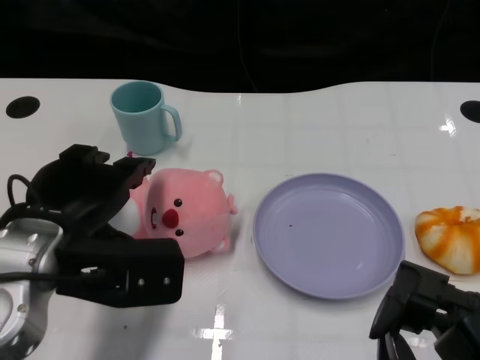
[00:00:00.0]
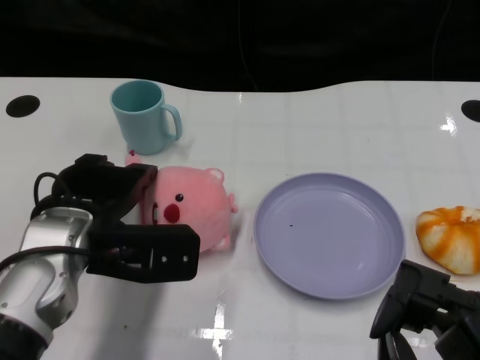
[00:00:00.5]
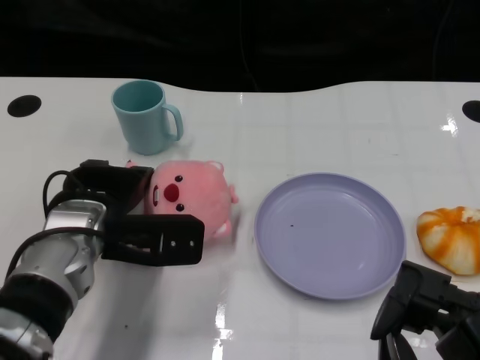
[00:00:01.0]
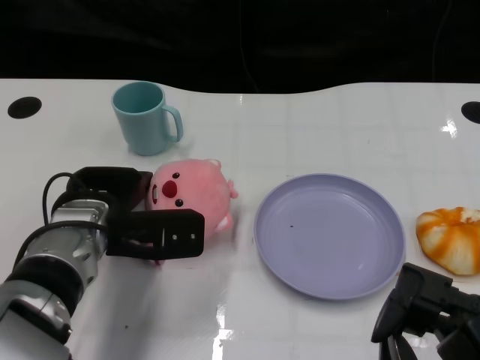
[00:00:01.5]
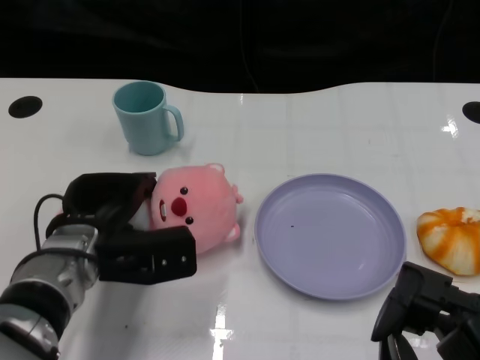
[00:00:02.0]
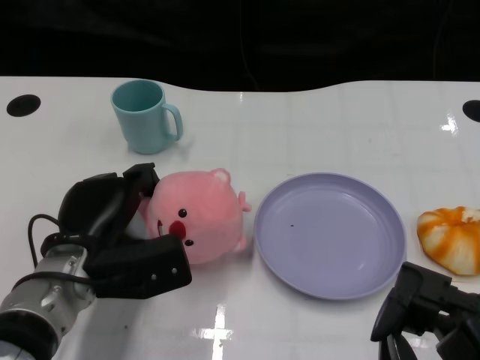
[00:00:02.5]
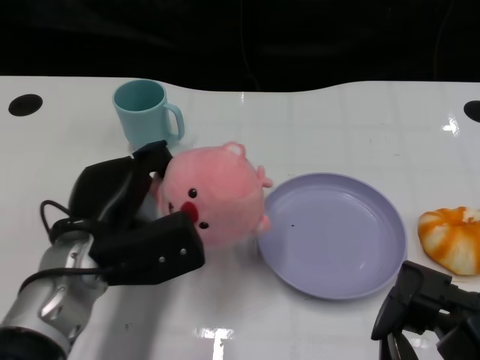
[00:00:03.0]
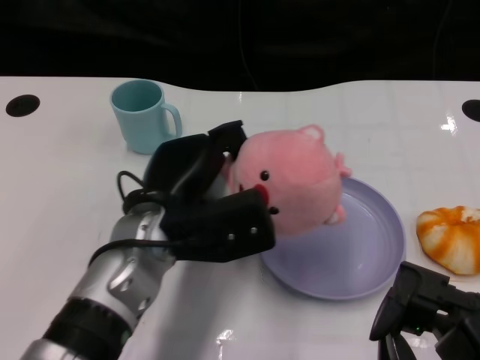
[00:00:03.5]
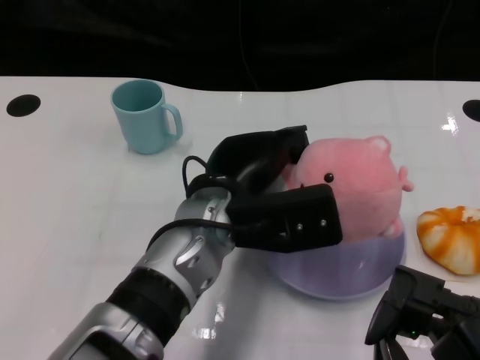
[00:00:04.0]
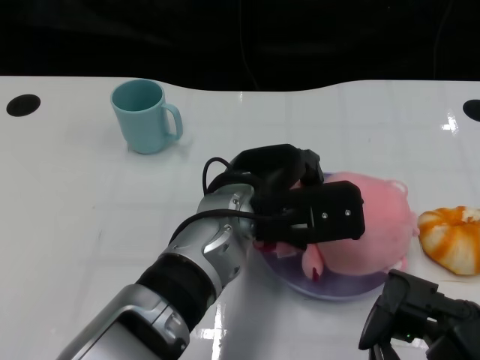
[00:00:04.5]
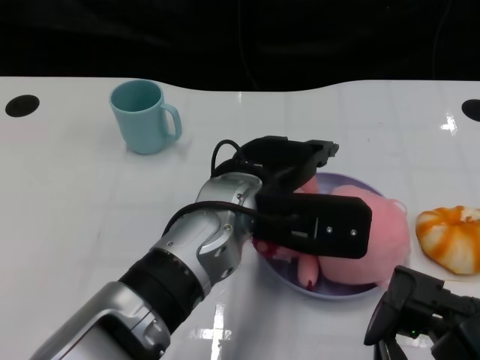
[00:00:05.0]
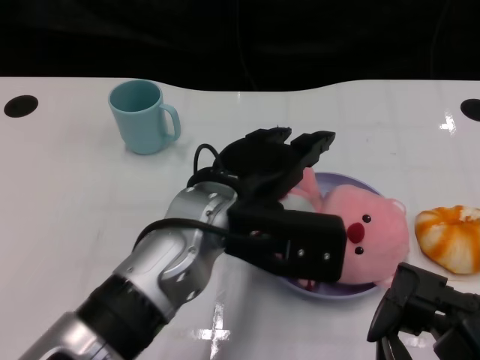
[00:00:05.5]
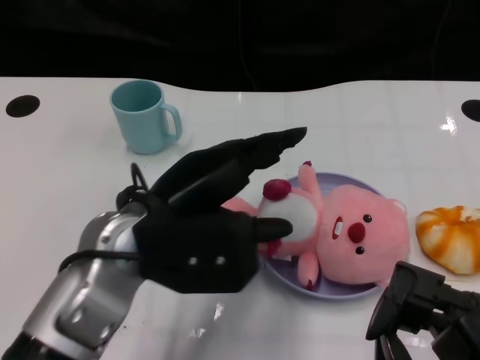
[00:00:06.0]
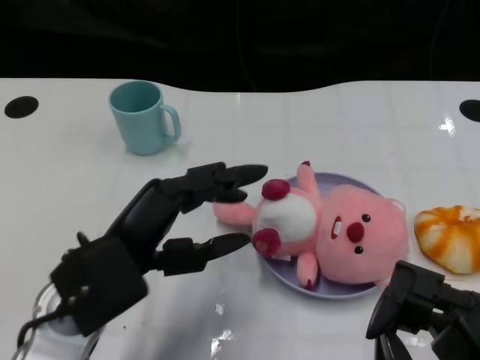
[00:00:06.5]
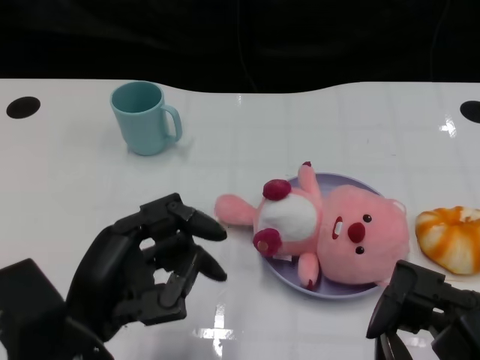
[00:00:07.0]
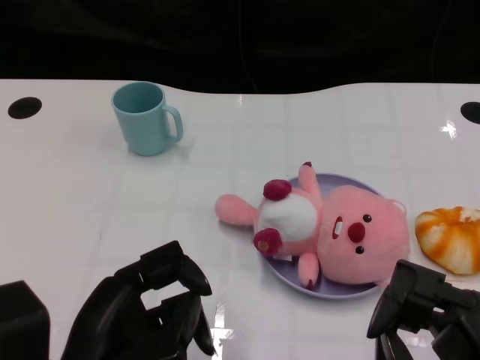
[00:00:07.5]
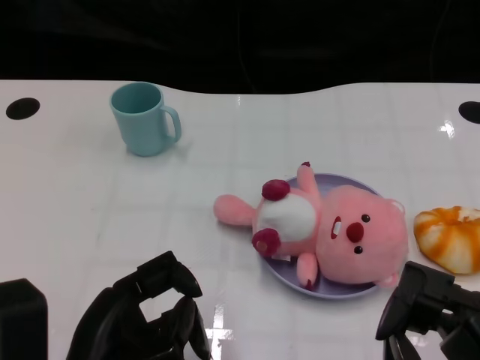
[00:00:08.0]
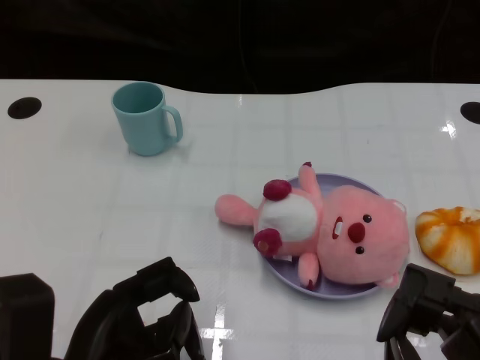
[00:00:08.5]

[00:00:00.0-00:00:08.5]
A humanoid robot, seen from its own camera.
Task of the whole recording: Pick up the doll on one side of the plate and place it into the plate.
Step, 00:00:00.0 to 00:00:02.5: Grasp the pink doll with the left gripper.
Step, 00:00:03.0 to 00:00:05.0: Place the pink doll into the plate with the left gripper.
00:00:00.0 to 00:00:02.0: The left hand travels downward and forward by approximately 10 cm.
00:00:02.0 to 00:00:04.0: The left hand is displaced to the right and upward by about 15 cm.
00:00:04.0 to 00:00:06.5: The left hand shifts roughly 15 cm to the left and backward.
00:00:06.5 to 00:00:08.5: The left hand goes about 10 cm backward.

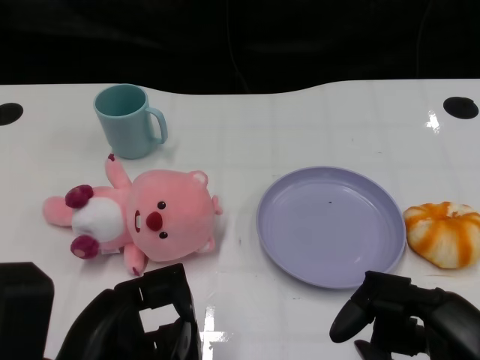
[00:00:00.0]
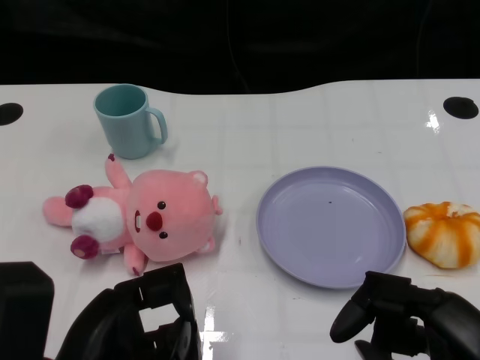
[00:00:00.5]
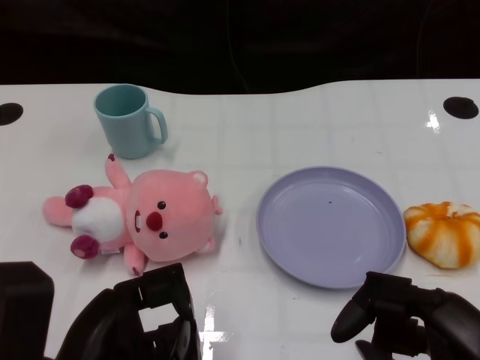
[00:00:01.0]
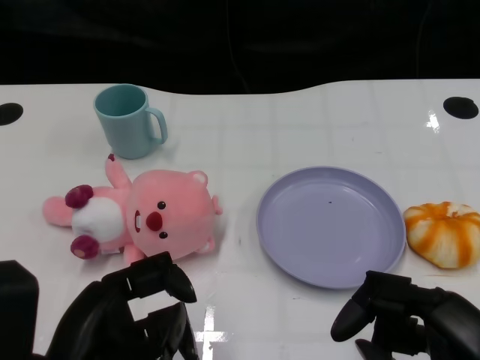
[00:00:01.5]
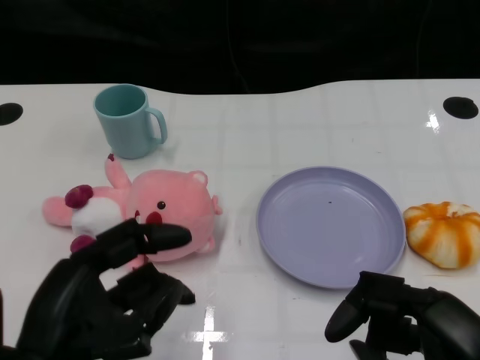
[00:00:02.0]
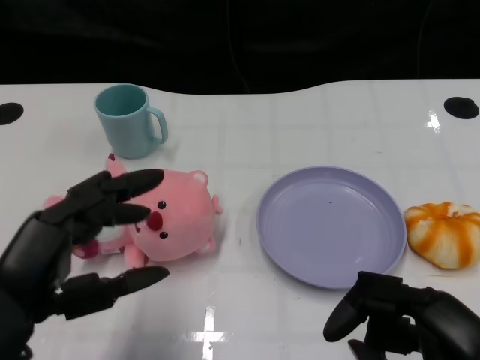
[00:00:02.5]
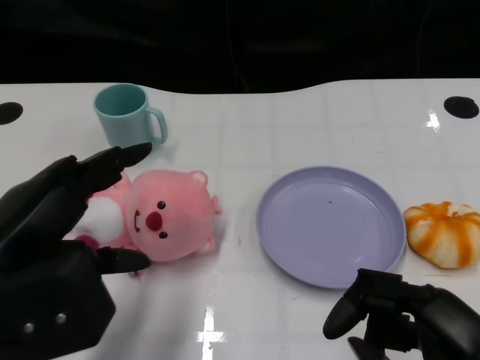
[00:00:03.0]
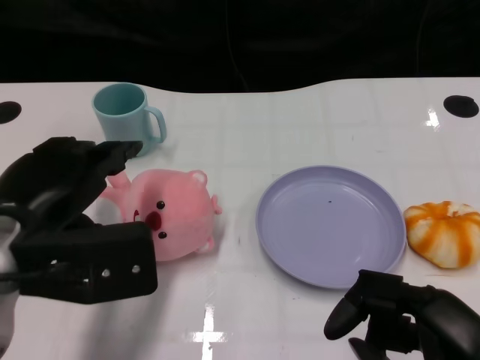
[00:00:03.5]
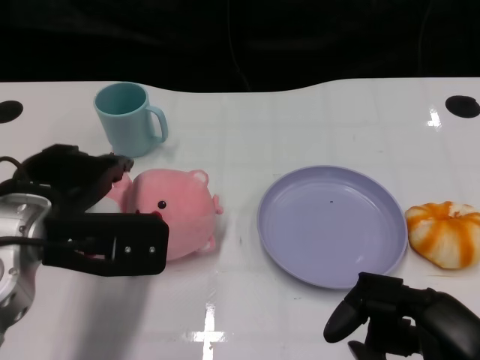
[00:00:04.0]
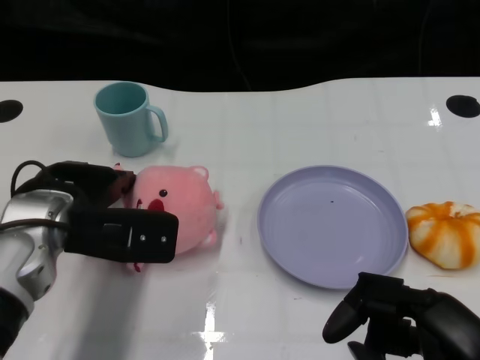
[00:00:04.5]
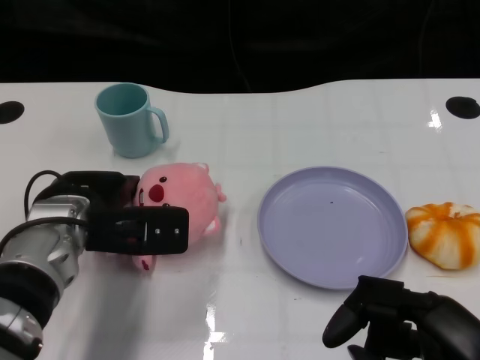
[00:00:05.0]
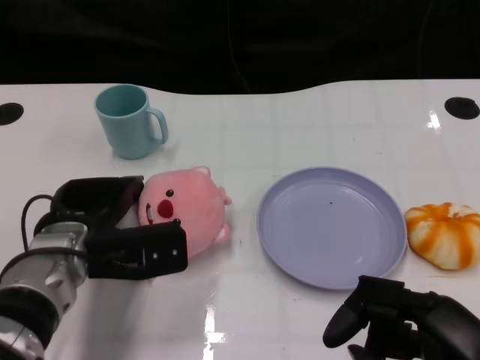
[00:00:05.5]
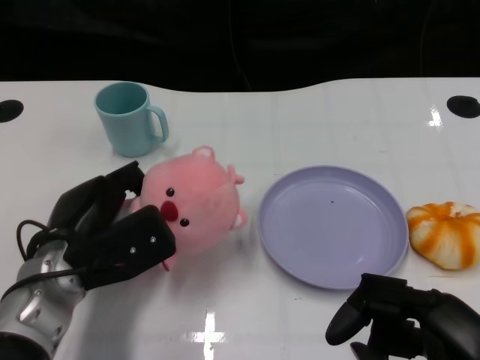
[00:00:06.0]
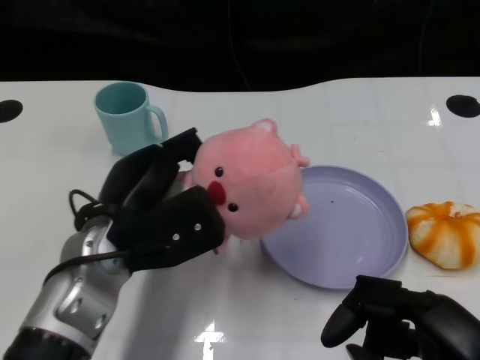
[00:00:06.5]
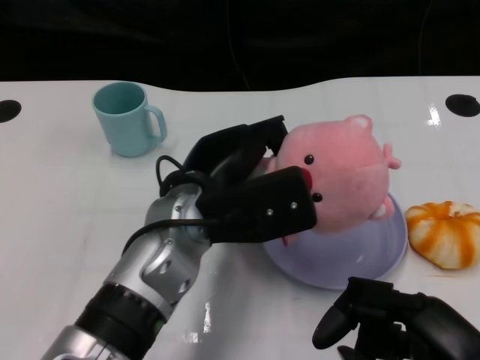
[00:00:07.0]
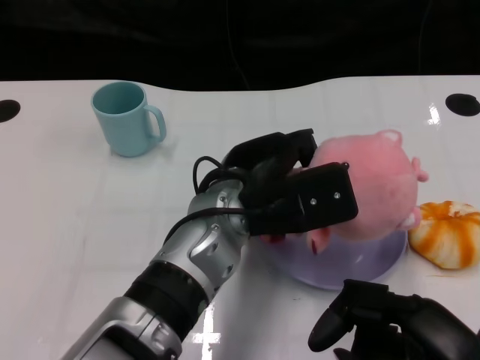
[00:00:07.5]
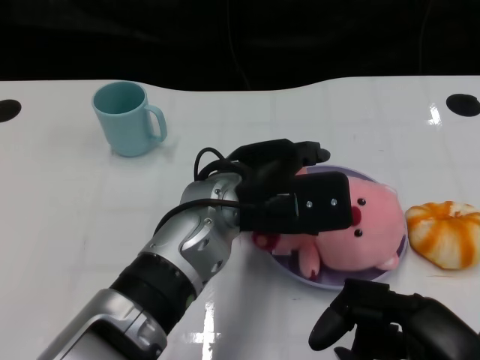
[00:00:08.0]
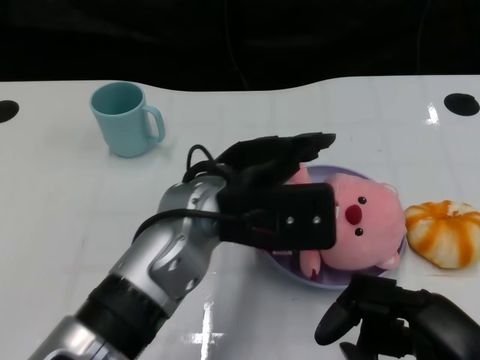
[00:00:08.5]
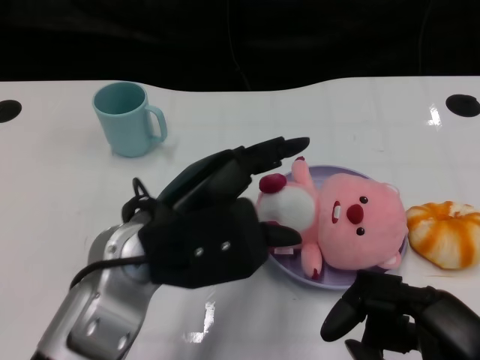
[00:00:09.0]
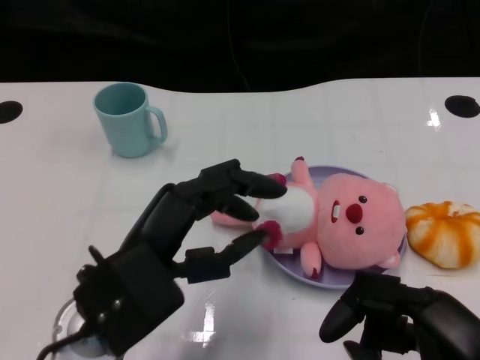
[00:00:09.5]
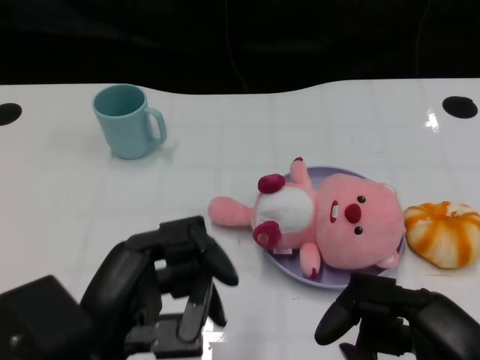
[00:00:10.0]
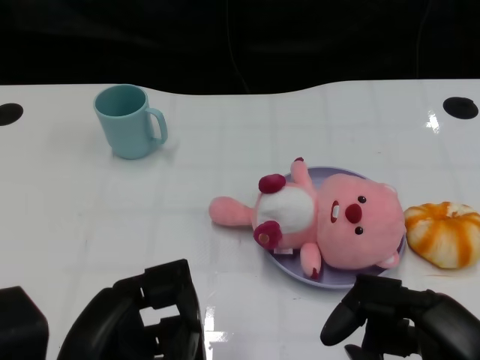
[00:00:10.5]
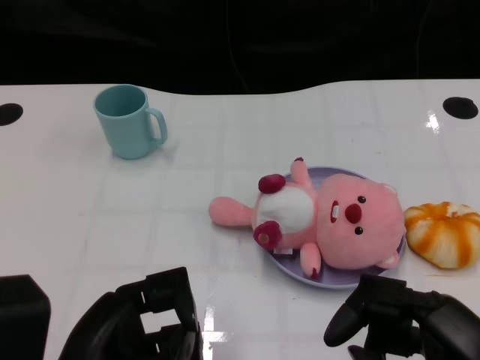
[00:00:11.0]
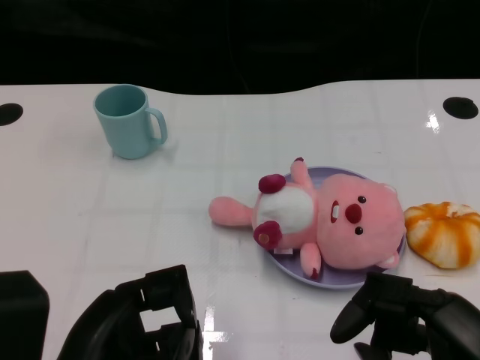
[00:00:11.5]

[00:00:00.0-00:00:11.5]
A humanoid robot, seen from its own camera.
Task of the whole recording: Pick up the doll on one side of the plate and place it into the plate.
Step, 00:00:01.5 to 00:00:05.5: Grasp the pink doll with the left gripper.
Step, 00:00:06.0 to 00:00:08.0: Place the pink doll into the plate with the left gripper.
00:00:02.0 to 00:00:04.0: The left hand moves forward, approximately 15 cm.
00:00:04.0 to 00:00:06.0: The left hand heads downward, covering some 10 cm.
00:00:06.0 to 00:00:07.5: The left hand goes roughly 20 cm to the right and upward.
00:00:07.5 to 00:00:09.5: The left hand travels to the left and backward by approximately 15 cm.
00:00:09.5 to 00:00:11.5: The left hand moves backward, some 5 cm.
